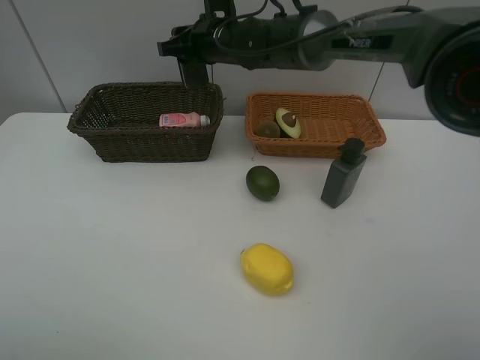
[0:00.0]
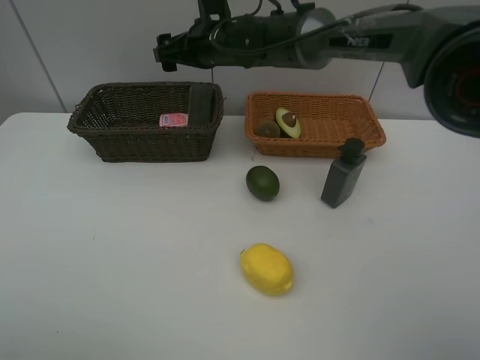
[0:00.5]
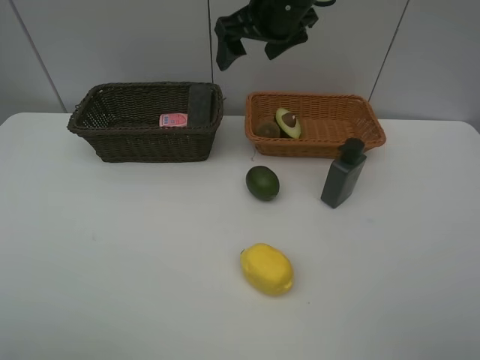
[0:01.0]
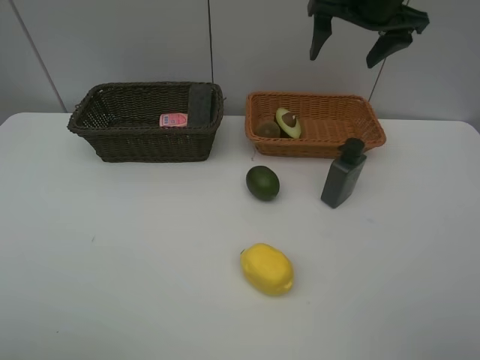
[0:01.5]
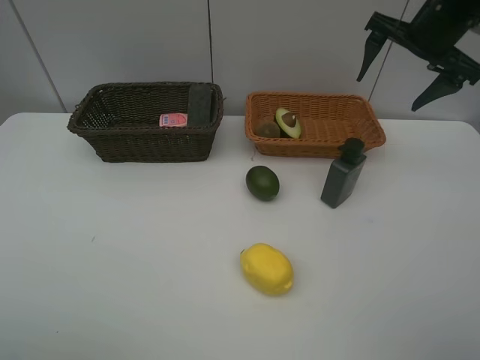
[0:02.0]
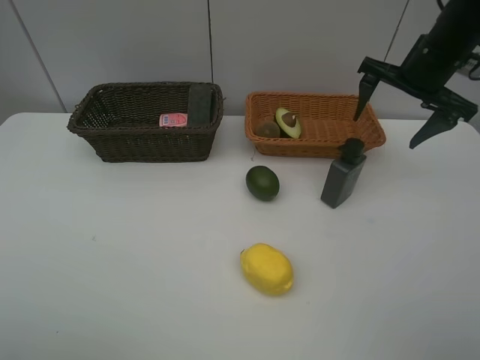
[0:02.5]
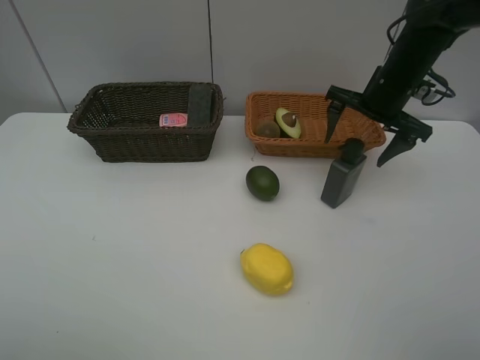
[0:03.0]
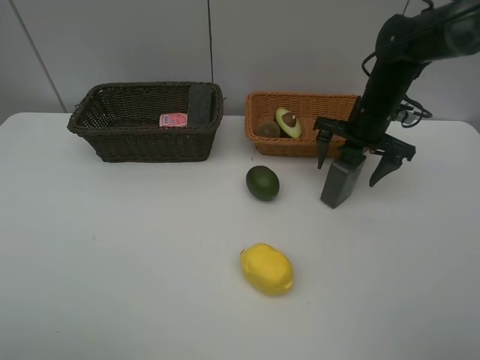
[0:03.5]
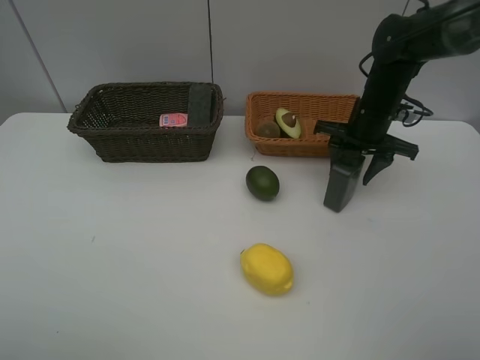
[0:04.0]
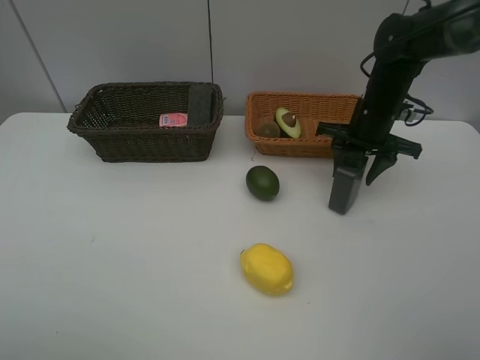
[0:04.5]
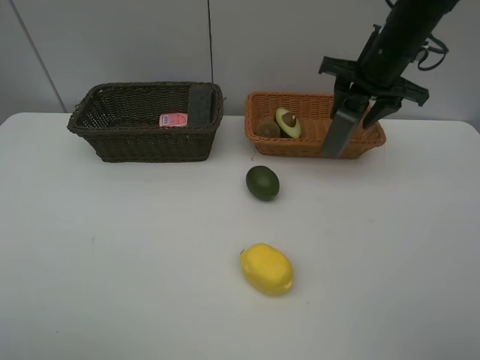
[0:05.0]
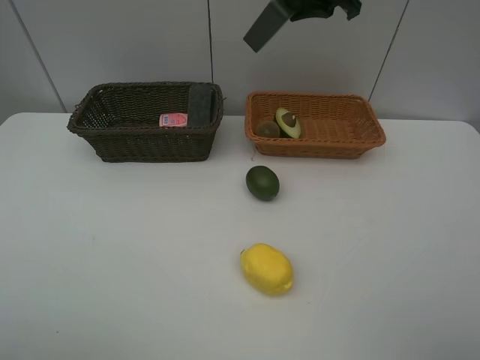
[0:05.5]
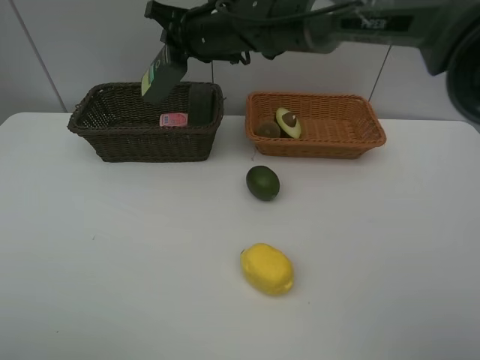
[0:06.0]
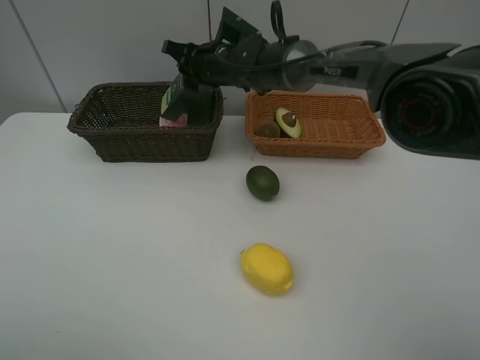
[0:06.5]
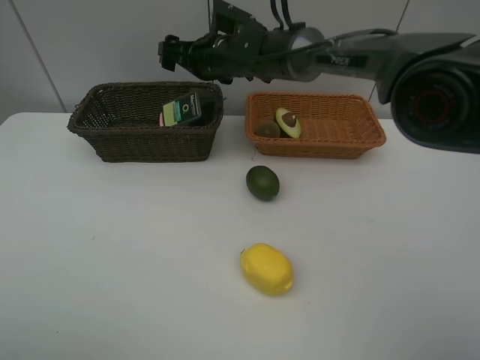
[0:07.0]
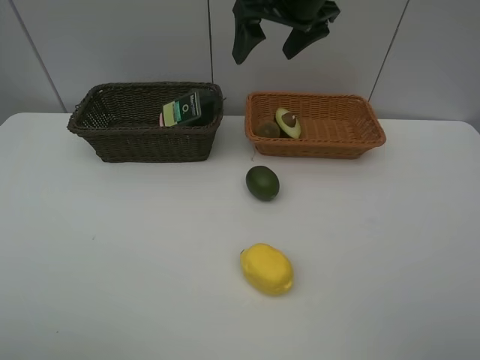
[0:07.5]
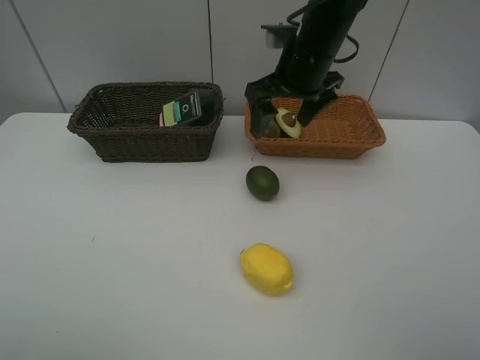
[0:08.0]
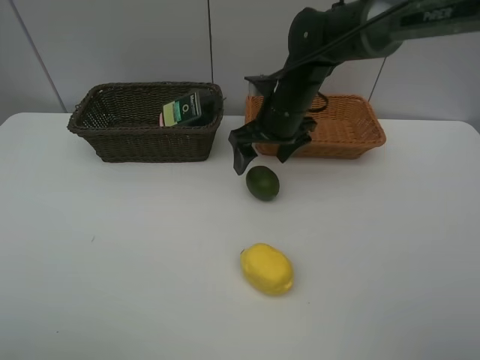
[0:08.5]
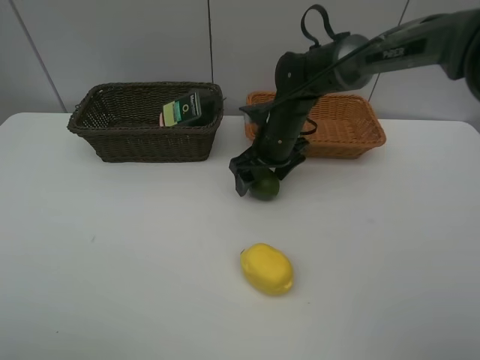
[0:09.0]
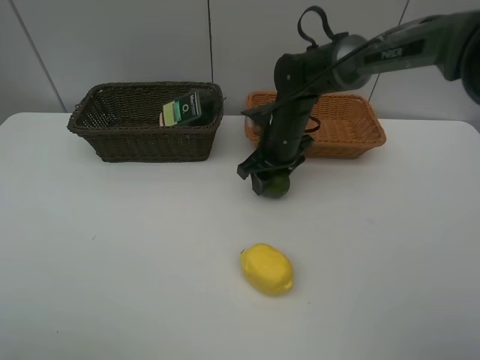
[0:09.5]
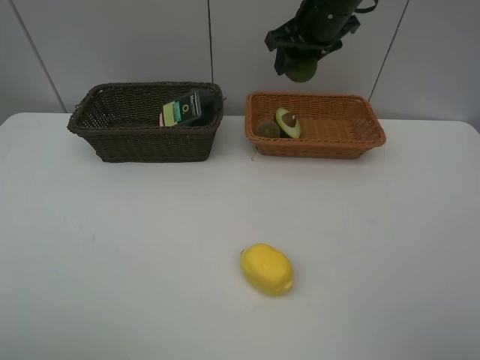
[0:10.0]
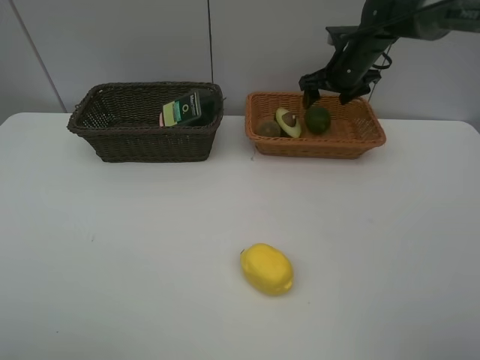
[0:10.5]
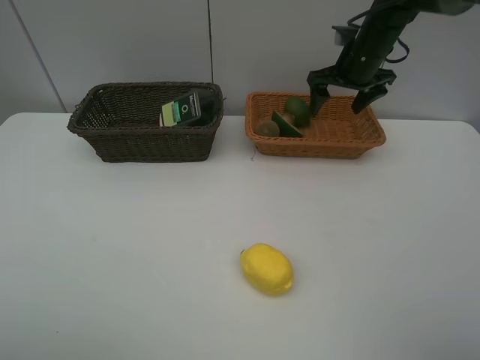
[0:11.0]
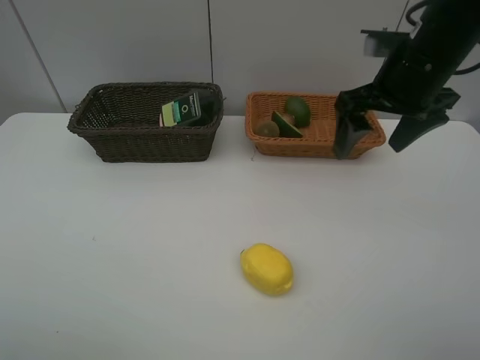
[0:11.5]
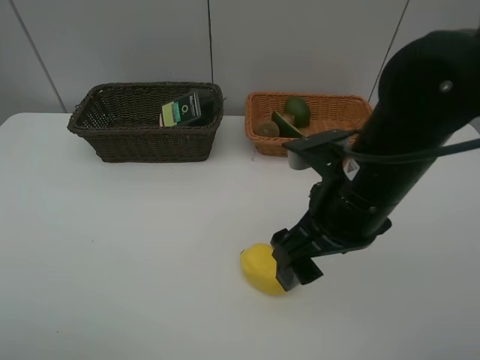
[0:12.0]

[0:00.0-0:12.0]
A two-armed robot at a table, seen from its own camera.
Task of the whole recording: Place multiple objects separately in different baskets.
Step, 1.0 to 4.5 s: Pick up the hard facial cleanser with right gripper.
Step, 5.0 to 6.5 s: Place the hard facial cleanser in the dark basket with right gripper.
Step, 7.0 to 9.5 s: Pick up the lime with right gripper.
Step, 10.0 to 10.5 s: Place the lime in the light basket with right gripper.
0.0 to 2.0 s: The right gripper shifts about 30 cm to the right, and opens its fingers.
2.0 to 4.0 s: The right gripper moves downward, about 15 cm, and closes up.
4.0 to 6.0 s: The right gripper heads to the left, covering roughly 25 cm.
6.0 to 8.0 s: The right gripper swings up and down, some 15 cm each way, with 2 reversals, and opens.
8.0 to 10.0 s: The right gripper travels forward by approximately 10 cm, travels downward and back again, some 10 cm each way, and closes its fingers.
10.0 to 12.0 s: The right gripper is displaced backward by about 25 cm, and opens up.

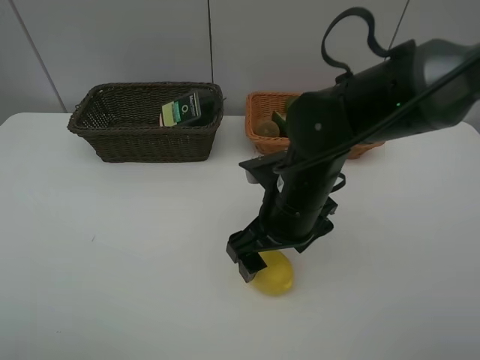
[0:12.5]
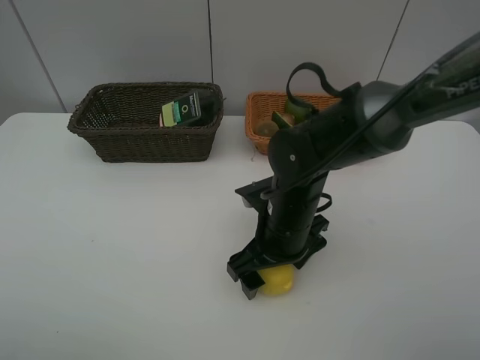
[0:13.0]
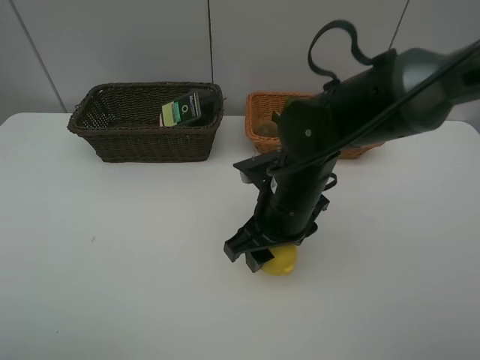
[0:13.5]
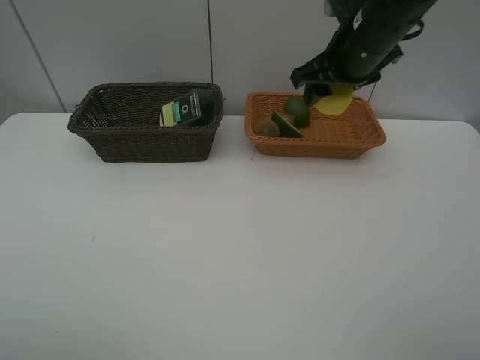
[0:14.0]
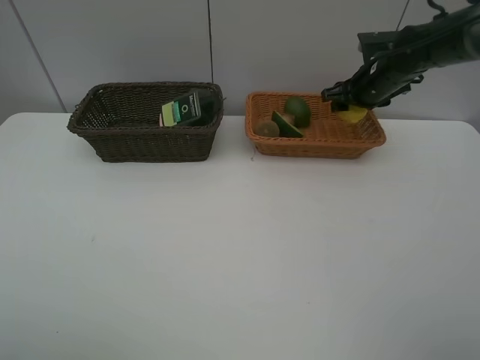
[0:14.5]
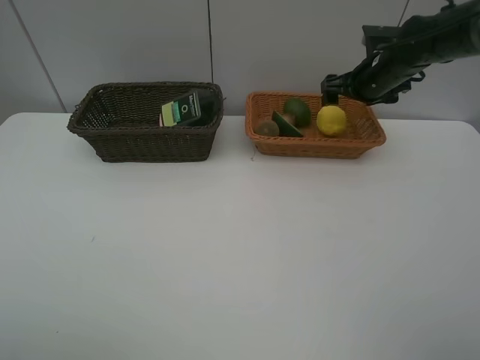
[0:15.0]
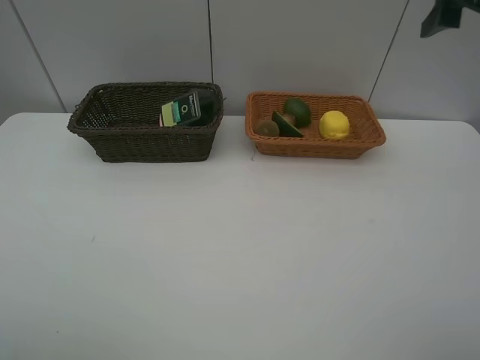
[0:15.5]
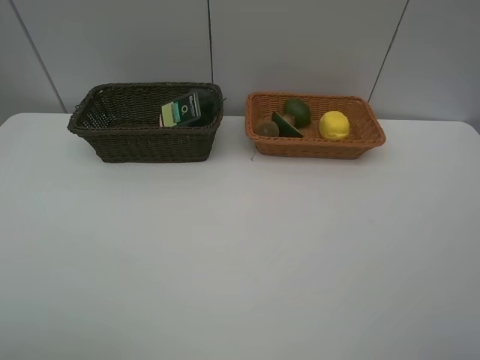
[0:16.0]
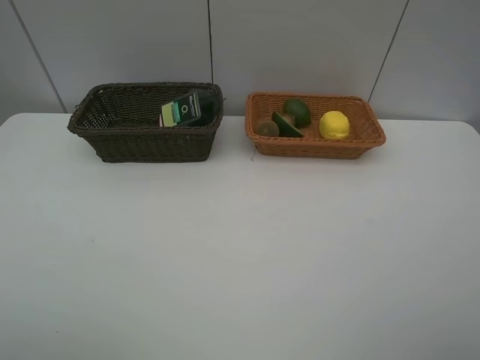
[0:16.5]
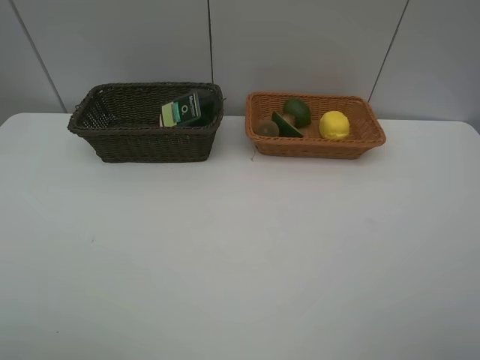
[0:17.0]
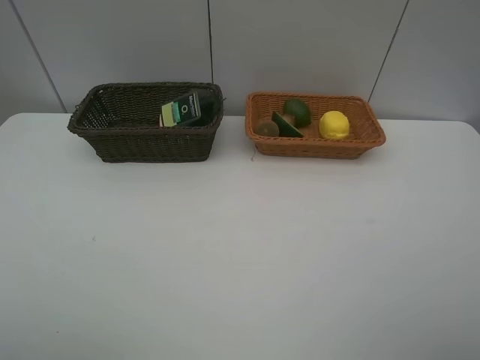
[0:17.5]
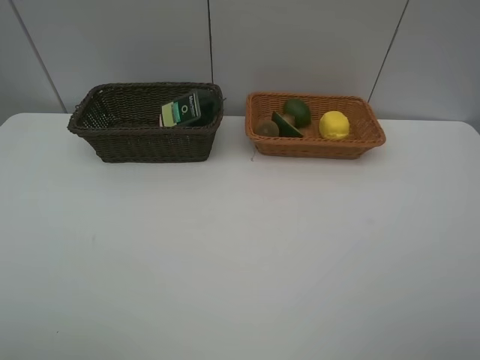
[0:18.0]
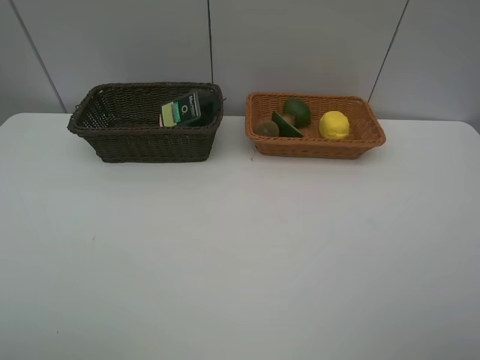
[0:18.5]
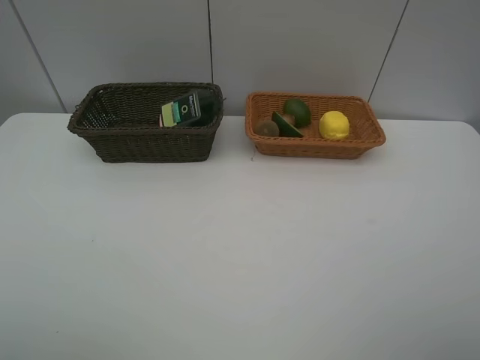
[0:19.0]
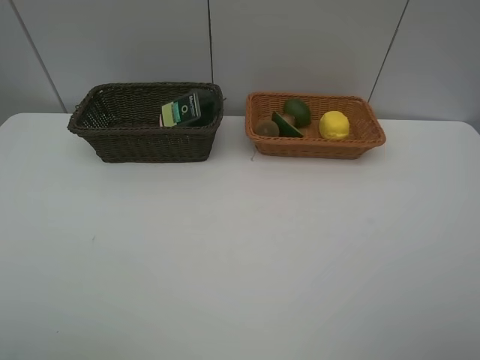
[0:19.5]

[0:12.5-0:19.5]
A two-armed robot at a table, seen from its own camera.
Task of the whole recording: Place multiple objects separately in different baskets.
Step, 13.5 to 15.0 s: Place the lemon in the light basket with right gripper.
12.5 to 14.5 s: The right gripper is displaced forward and to the right by some 30 cm, and closes its fingers.
14.5 to 16.0 s: The right gripper heads backward and upward, covering approximately 40 cm, and opens up.
17.5 to 19.5 s: Both grippers stay put.

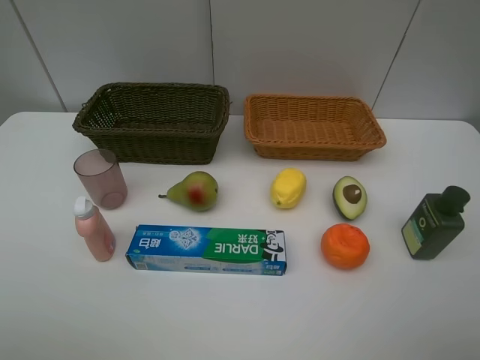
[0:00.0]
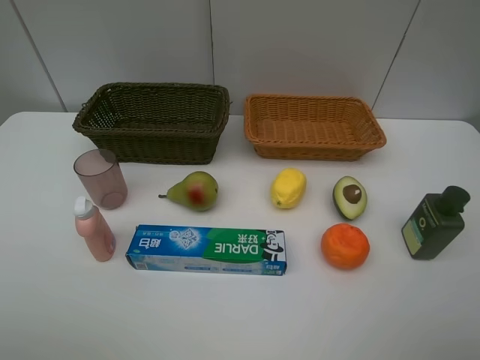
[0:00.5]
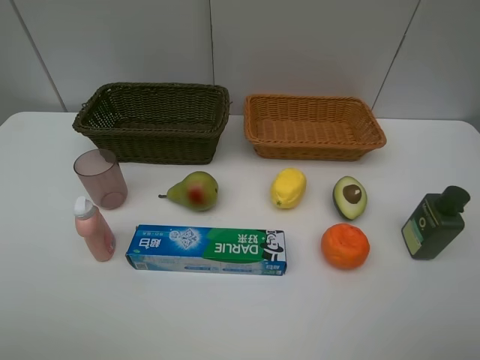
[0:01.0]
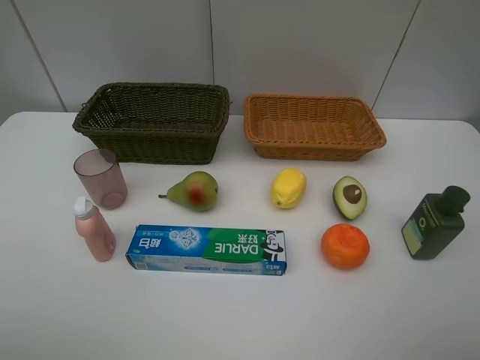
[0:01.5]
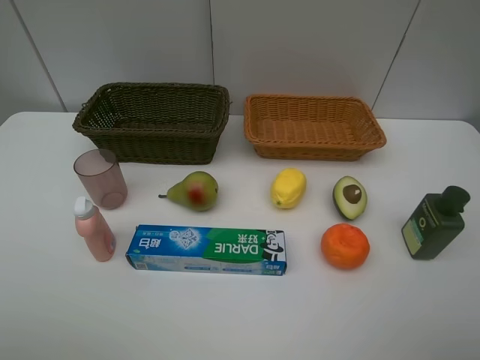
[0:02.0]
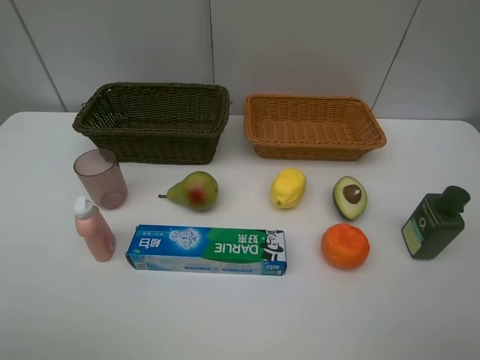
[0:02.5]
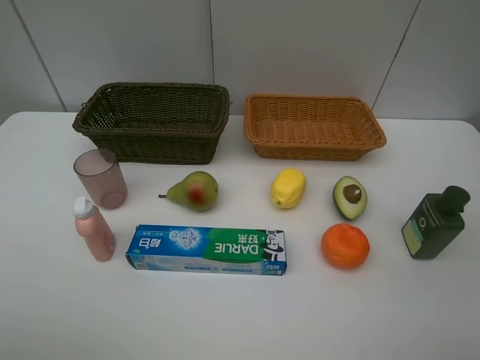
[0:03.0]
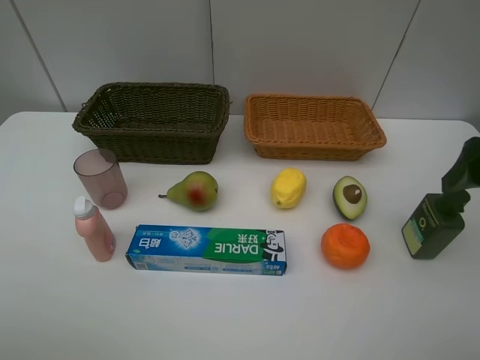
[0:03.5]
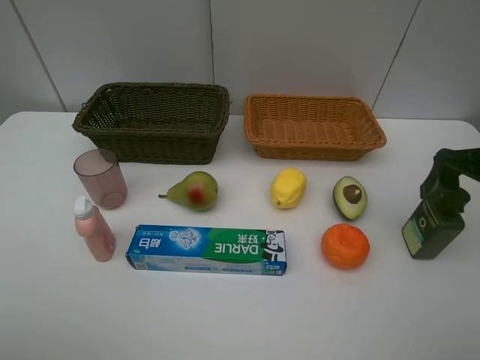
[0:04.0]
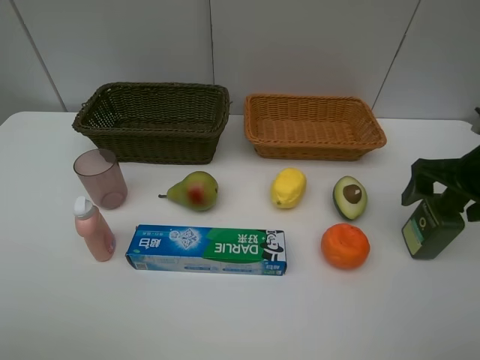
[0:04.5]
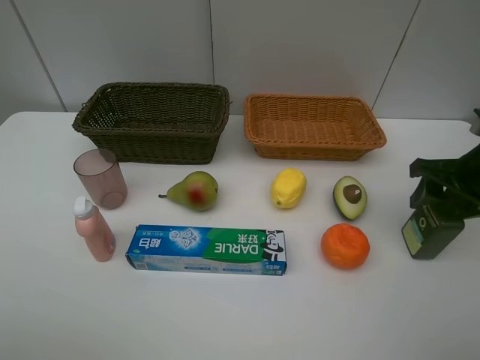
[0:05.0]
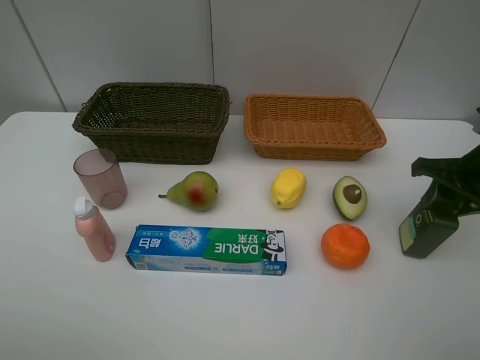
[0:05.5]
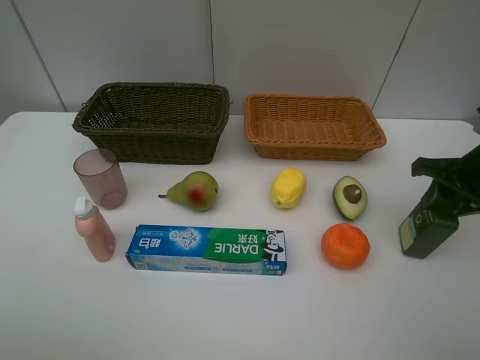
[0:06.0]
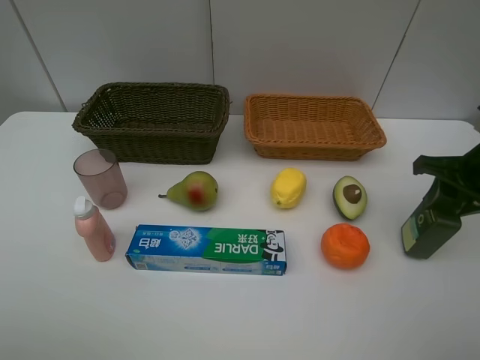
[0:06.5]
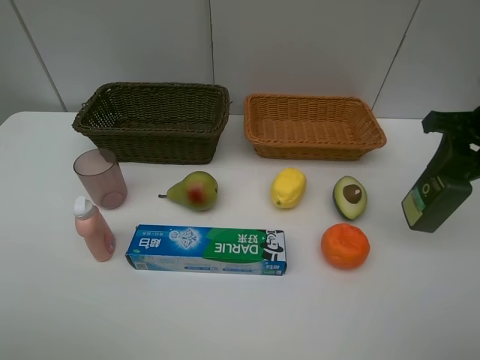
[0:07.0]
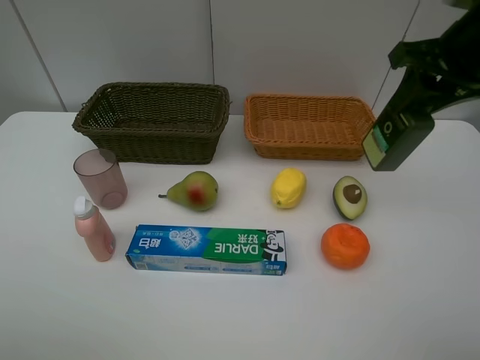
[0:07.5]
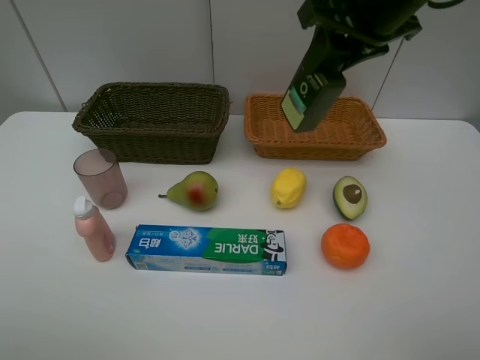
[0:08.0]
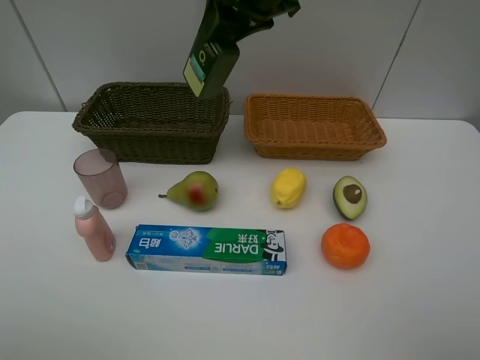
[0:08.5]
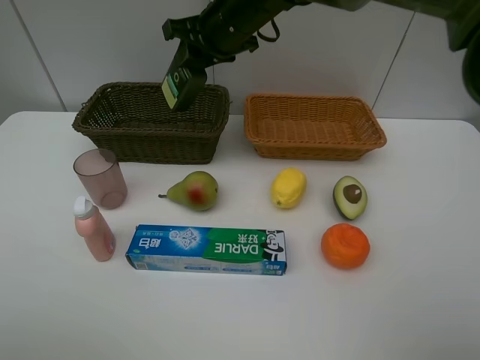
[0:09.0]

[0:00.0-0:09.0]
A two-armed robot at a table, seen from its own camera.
Task of the whole recording: Place multiple objects separately in different baskets.
Step, 0.0 to 6.5 s: Pick up the hard facial cleanser with right gripper.
0.0 to 2.0 s: Neither gripper changes place.
2.0 to 4.5 s: The right gripper travels forward by some 25 cm.
4.5 to 7.0 s: The right gripper goes about 5 cm upward, and closes its fingers.
7.0 to 9.0 s: The right gripper heads to the left and forward, covering approximately 35 cm.
